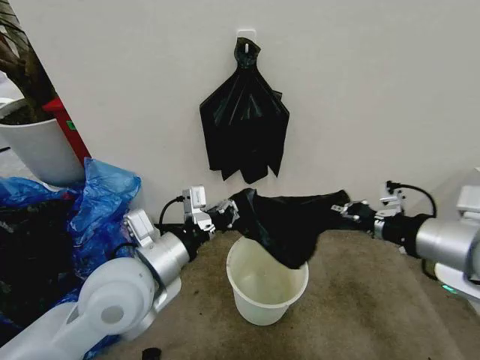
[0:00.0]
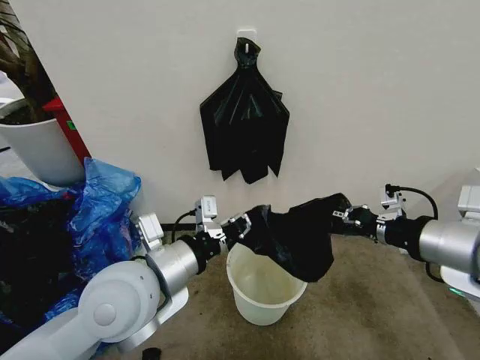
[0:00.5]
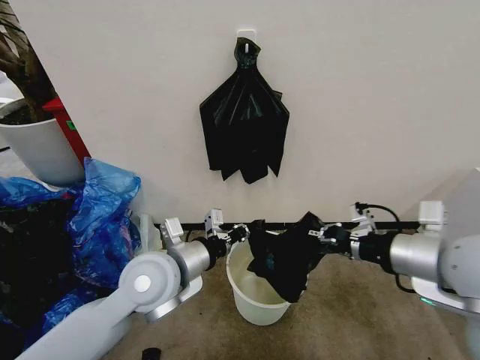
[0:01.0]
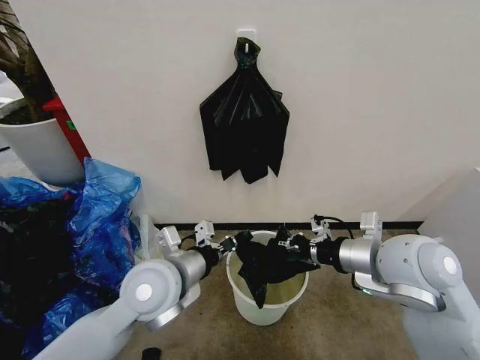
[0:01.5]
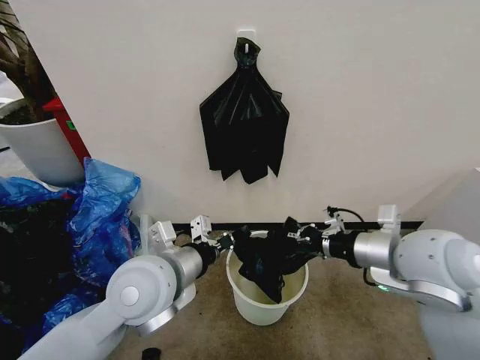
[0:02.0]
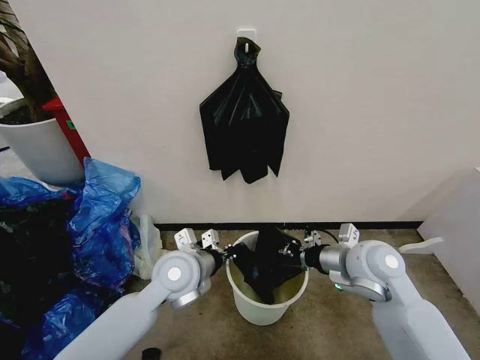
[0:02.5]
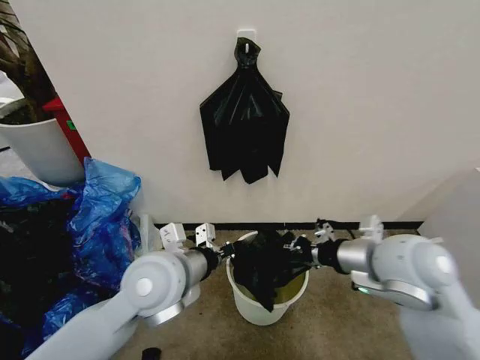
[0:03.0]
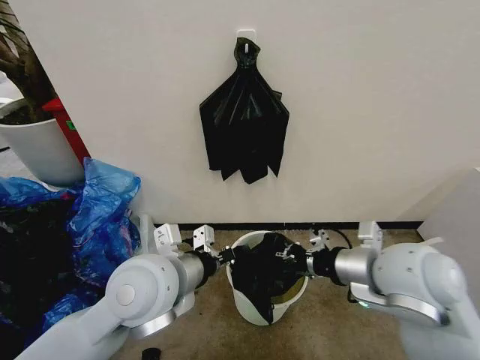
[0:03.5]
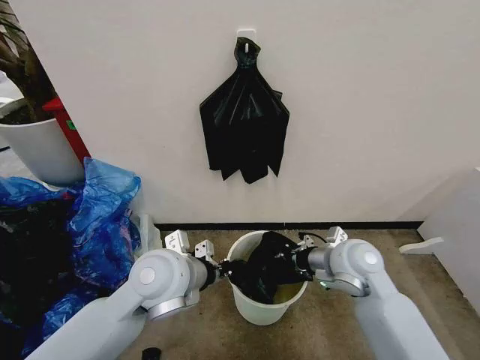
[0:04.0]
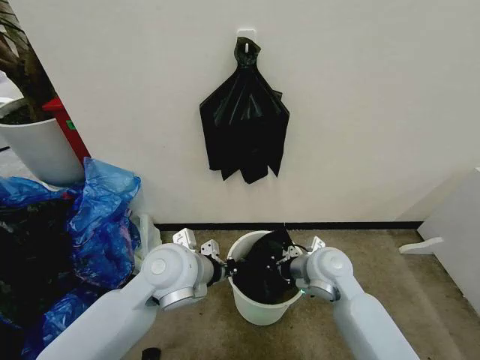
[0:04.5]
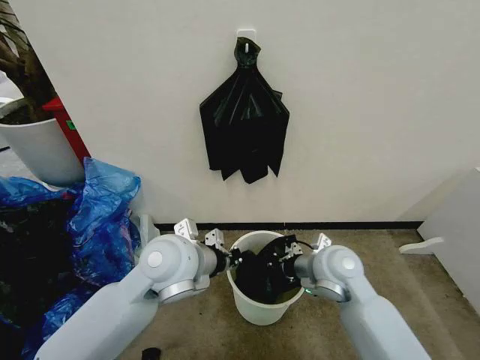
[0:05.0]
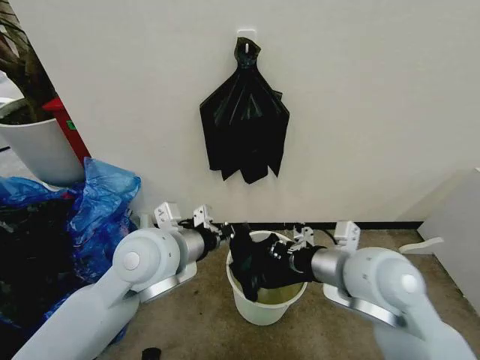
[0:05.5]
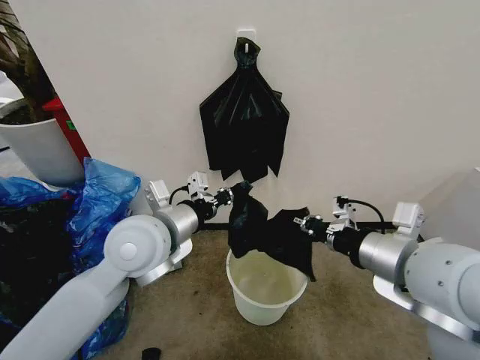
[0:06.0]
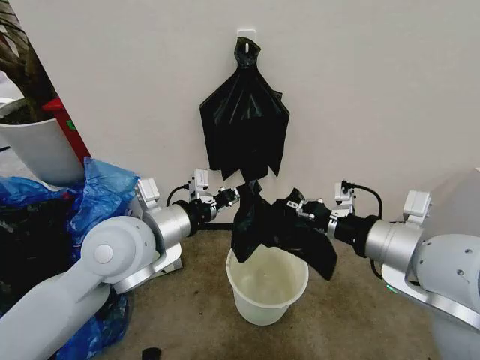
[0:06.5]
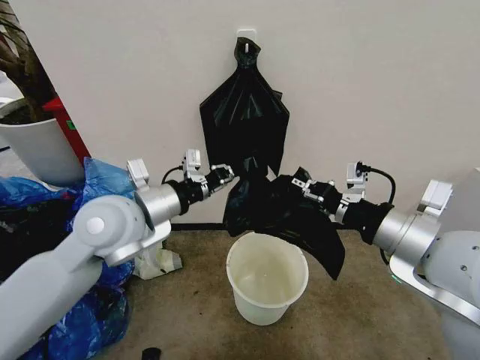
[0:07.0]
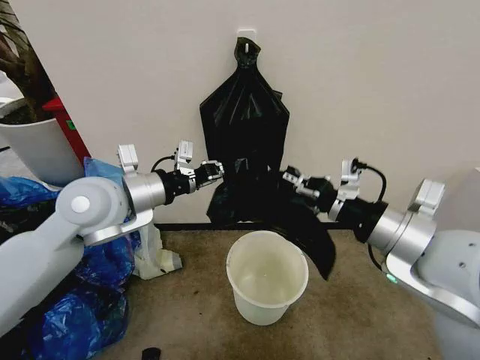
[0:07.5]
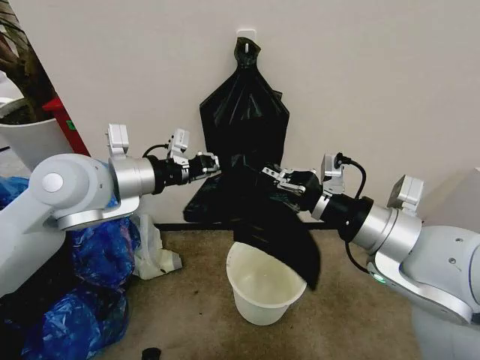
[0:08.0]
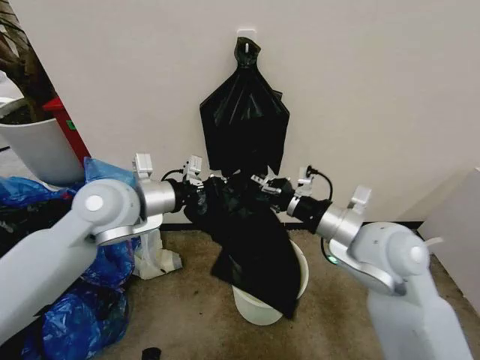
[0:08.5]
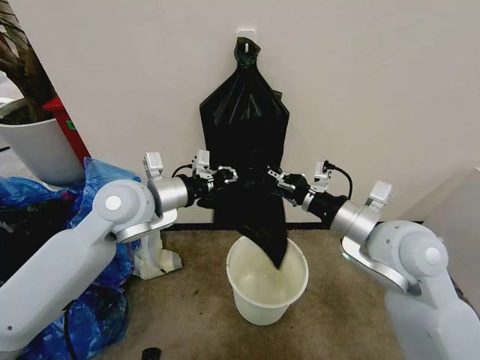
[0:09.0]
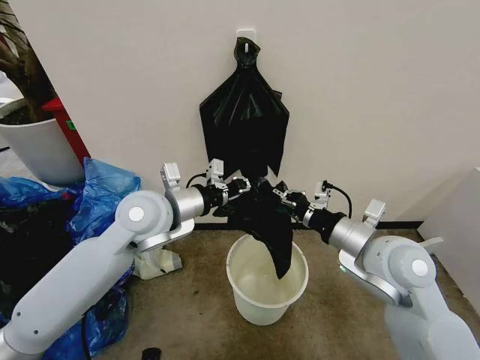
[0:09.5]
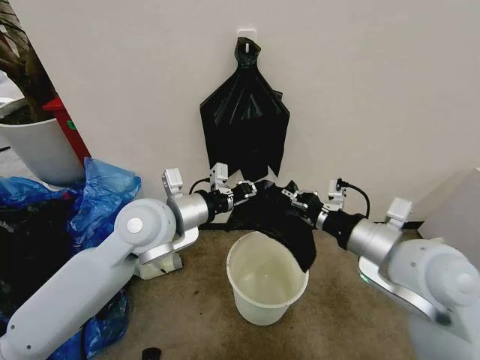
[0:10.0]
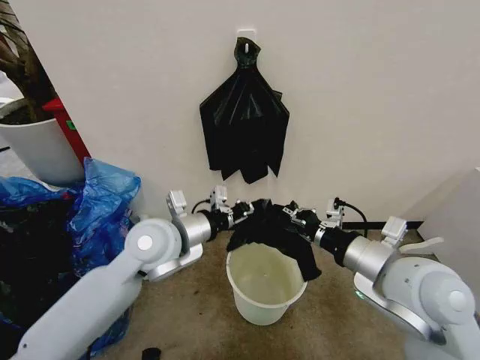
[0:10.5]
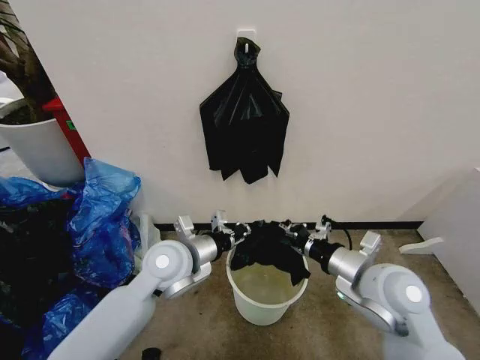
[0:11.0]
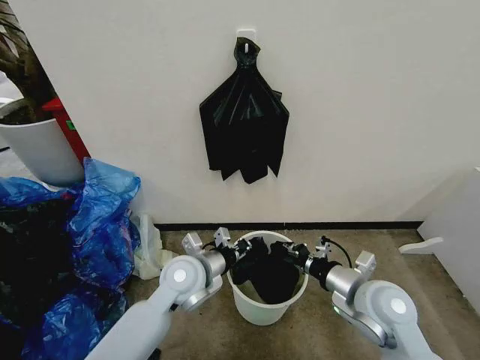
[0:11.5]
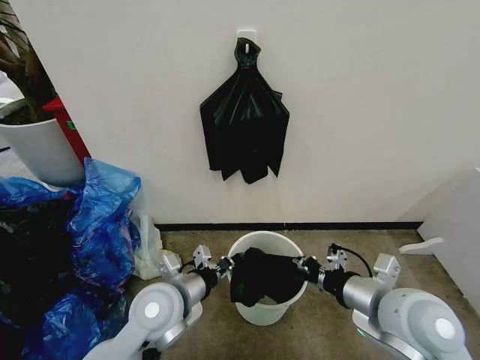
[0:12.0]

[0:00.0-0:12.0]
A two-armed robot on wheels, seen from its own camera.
Task of the whole recording: Place the garbage bag over the trash bin.
0:00.0 to 0:02.0: The right gripper shifts some 5 cm downward.
0:02.0 to 0:04.0: The right gripper moves up and down over approximately 15 cm, changing direction 2 times; the left gripper swings up and down, about 10 cm each way, with 2 reversals.
0:04.0 to 0:06.0: The right gripper goes some 20 cm upward and backward. Meanwhile the left gripper goes about 5 cm upward.
0:06.0 to 0:08.0: The left gripper goes roughly 10 cm upward and to the left.
0:08.0 to 0:10.0: The right gripper goes some 5 cm downward. The left gripper travels downward and to the right by roughly 10 cm.
0:10.0 to 0:12.0: The right gripper travels downward and backward by approximately 10 cm. Meanwhile the left gripper heads downward and backward, covering approximately 15 cm.

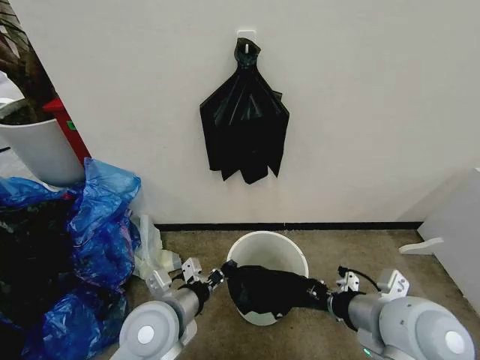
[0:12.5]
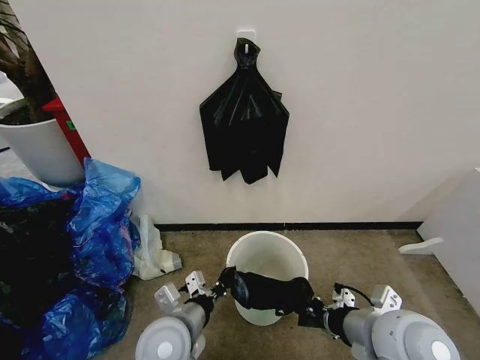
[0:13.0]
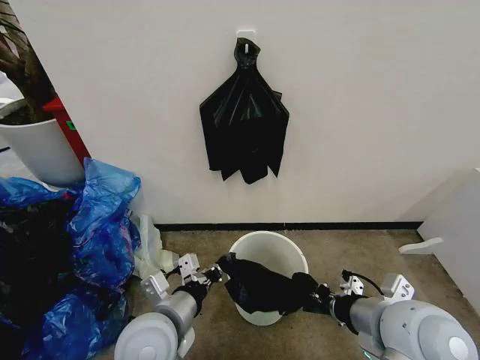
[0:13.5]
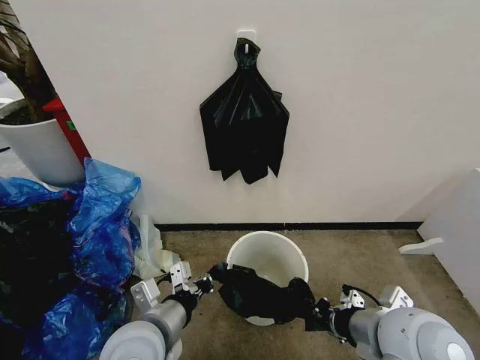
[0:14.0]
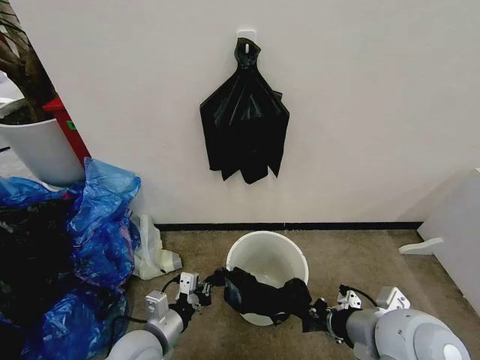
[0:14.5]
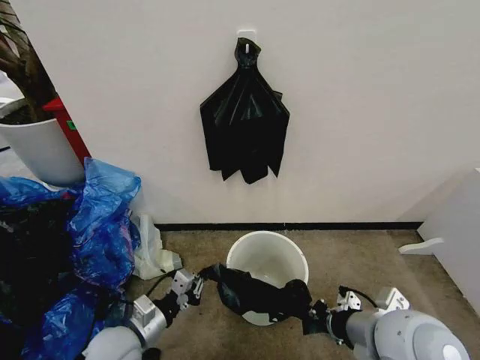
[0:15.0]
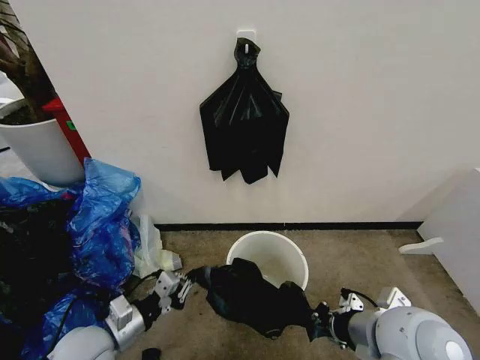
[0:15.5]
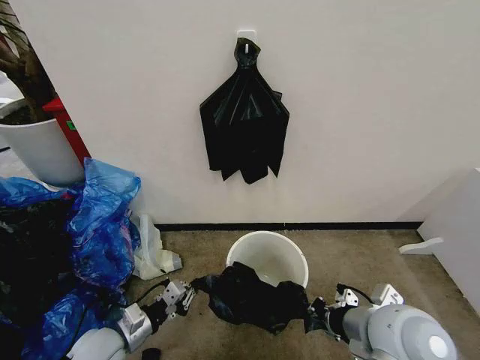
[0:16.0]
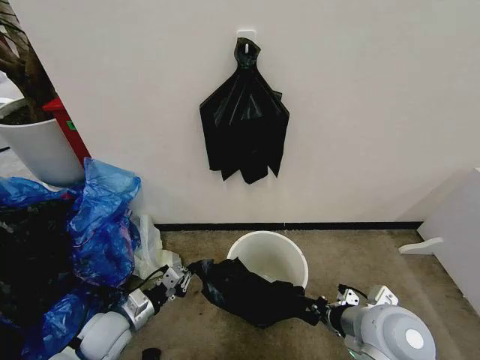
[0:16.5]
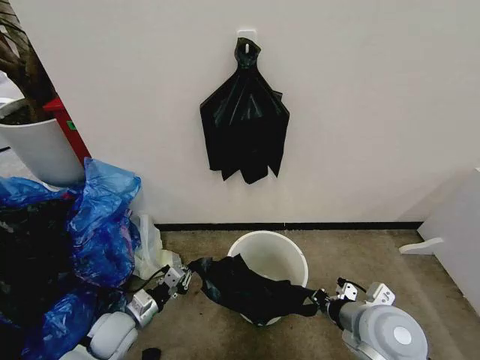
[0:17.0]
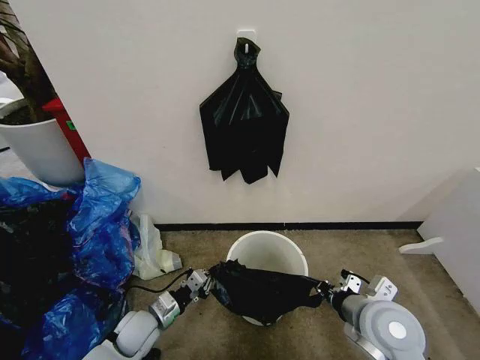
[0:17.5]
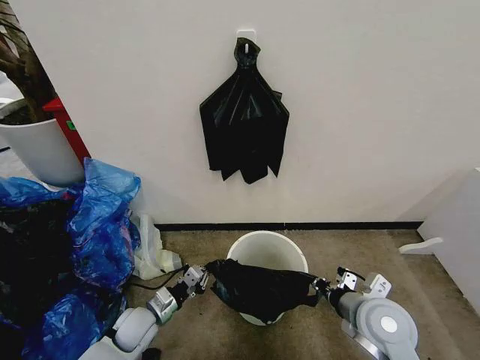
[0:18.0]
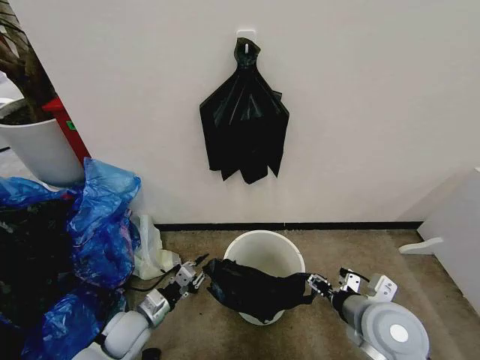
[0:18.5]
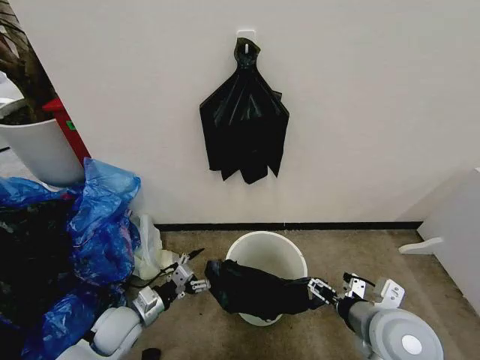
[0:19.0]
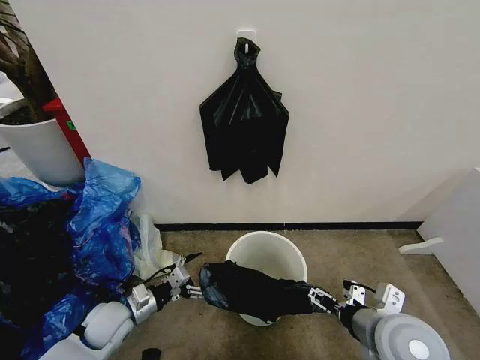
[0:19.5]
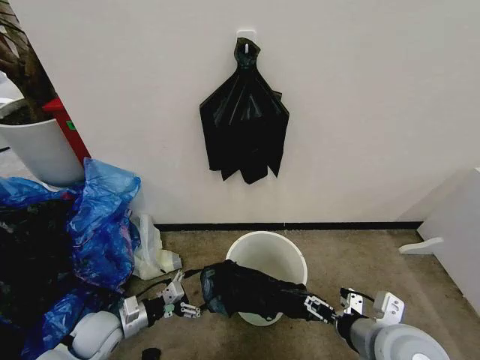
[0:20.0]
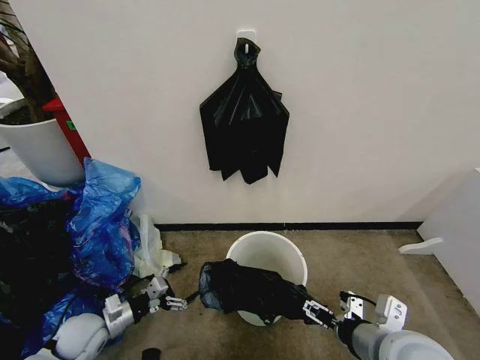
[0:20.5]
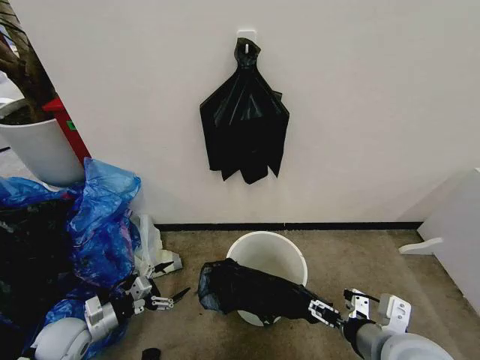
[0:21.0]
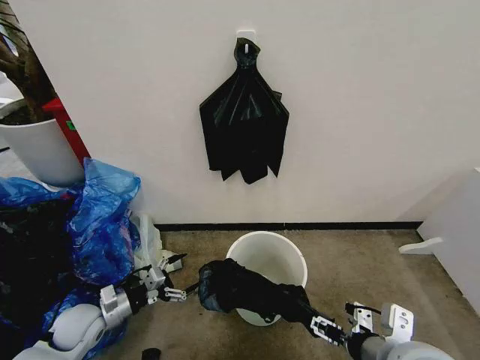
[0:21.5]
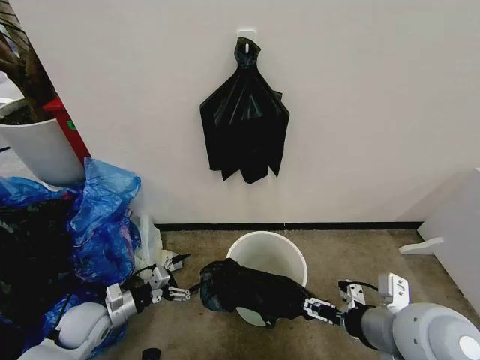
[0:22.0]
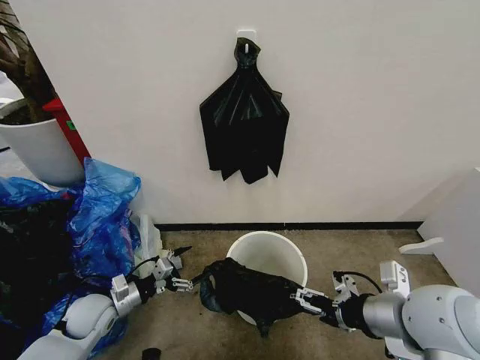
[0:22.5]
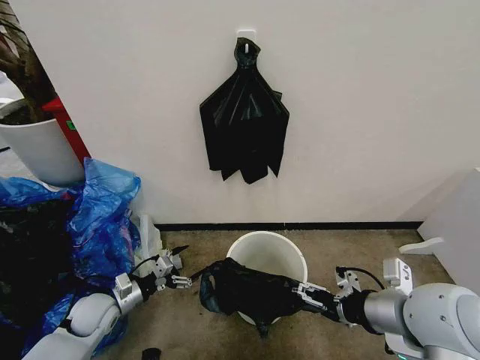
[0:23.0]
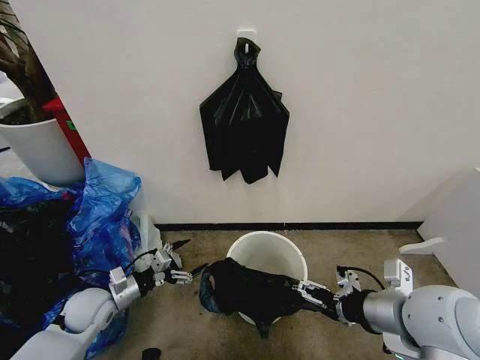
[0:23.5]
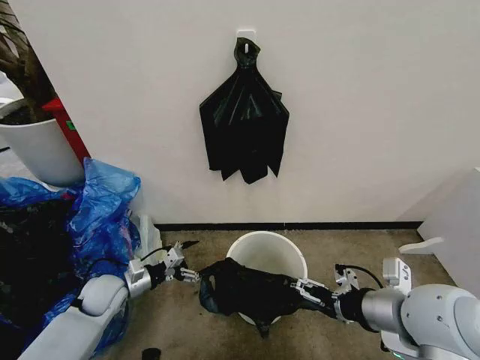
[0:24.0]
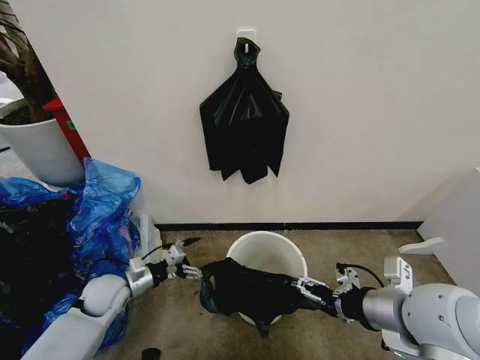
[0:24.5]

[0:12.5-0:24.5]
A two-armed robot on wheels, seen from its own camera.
Task of the whole recording: Place the garbage bag over the trash bin.
0:12.5 to 0:14.5: The left gripper swings up and down, about 10 cm each way, with 2 reversals.
0:14.5 to 0:16.5: The right gripper shifts some 5 cm downward. The left gripper is displaced to the left by some 10 cm.
0:16.5 to 0:18.5: The right gripper opens its fingers. Meanwhile the left gripper moves roughly 5 cm.
0:18.5 to 0:20.5: The right gripper goes some 5 cm backward. The left gripper is displaced to the left by approximately 10 cm, and opens its fingers.
0:20.5 to 0:22.5: The right gripper heads upward, covering approximately 10 cm.
0:22.5 to 0:24.5: The grippers stay close to where they were, moving slightly.

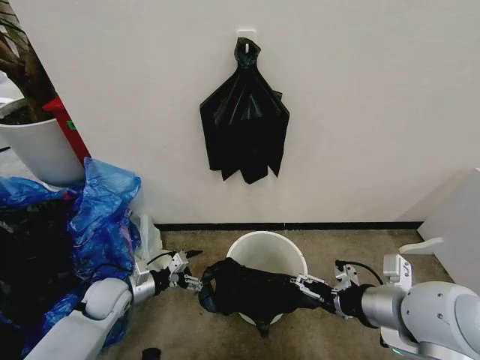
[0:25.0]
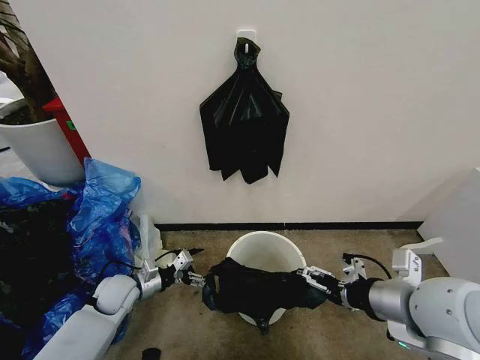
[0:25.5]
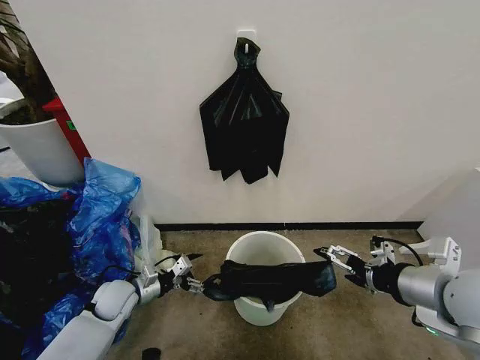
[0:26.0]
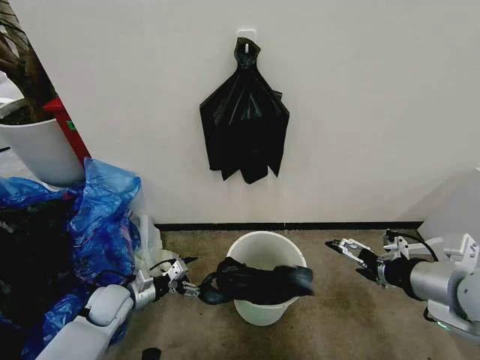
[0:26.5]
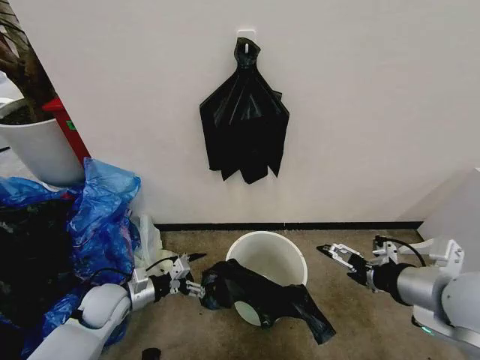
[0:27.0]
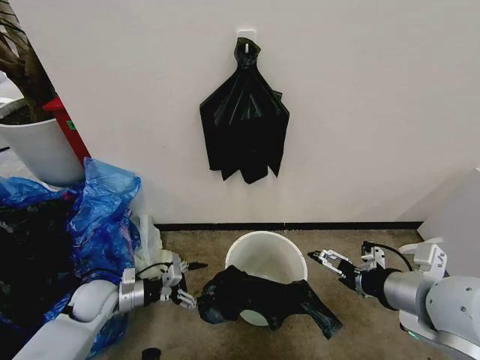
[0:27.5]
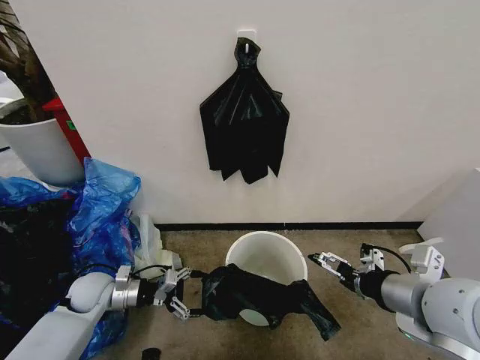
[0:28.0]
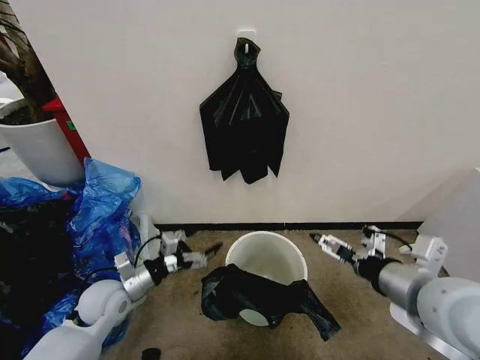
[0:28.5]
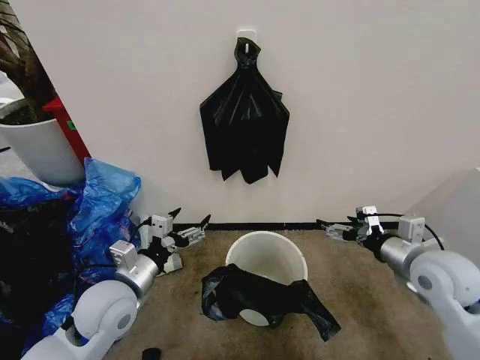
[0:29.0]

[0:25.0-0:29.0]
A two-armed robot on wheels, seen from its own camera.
Task of the whole recording: Place the garbage bag over the trash bin.
0:27.0 to 0:29.0: The left gripper travels upward and to the right by approximately 15 cm, while the right gripper is displaced downward and forward by some 10 cm.
